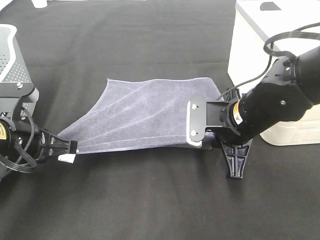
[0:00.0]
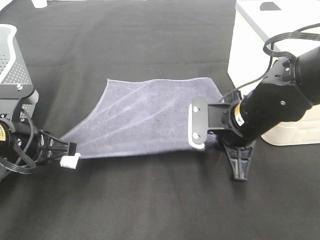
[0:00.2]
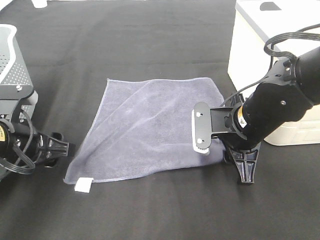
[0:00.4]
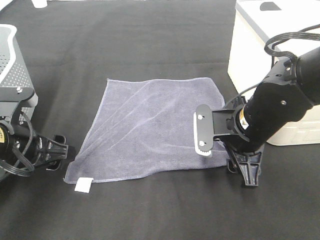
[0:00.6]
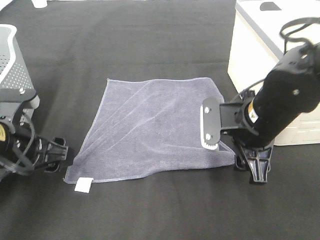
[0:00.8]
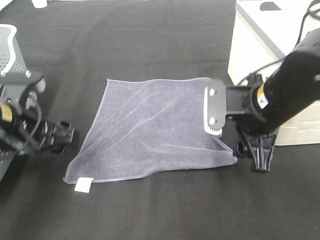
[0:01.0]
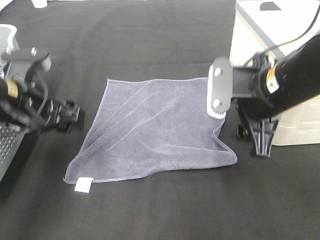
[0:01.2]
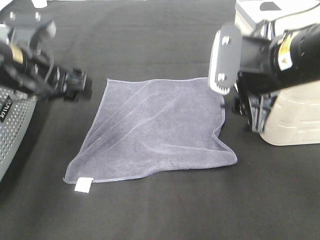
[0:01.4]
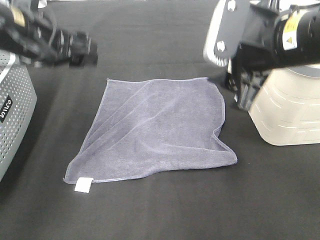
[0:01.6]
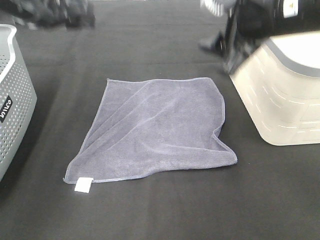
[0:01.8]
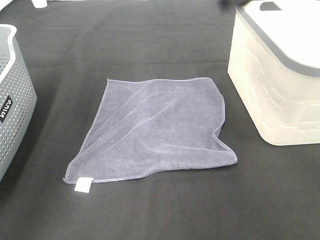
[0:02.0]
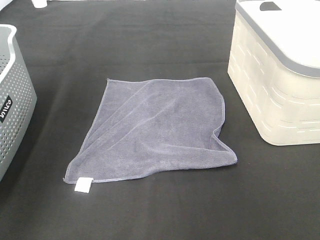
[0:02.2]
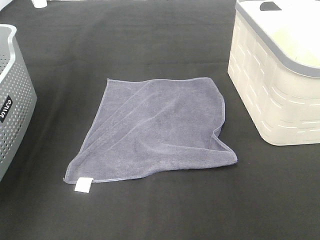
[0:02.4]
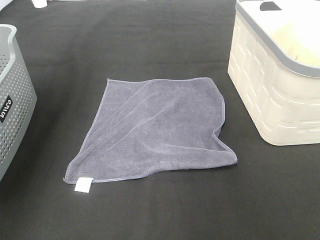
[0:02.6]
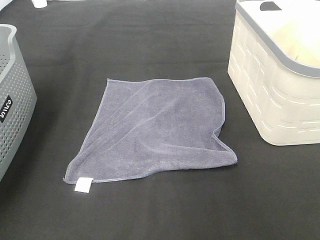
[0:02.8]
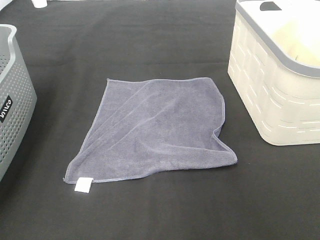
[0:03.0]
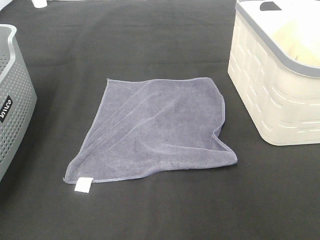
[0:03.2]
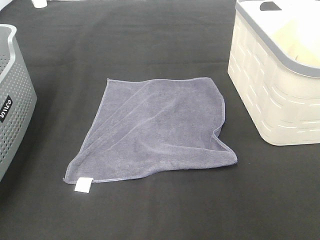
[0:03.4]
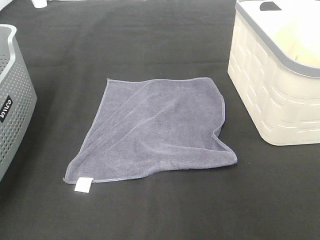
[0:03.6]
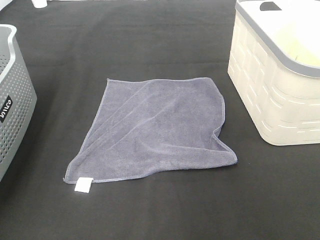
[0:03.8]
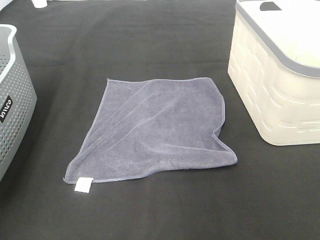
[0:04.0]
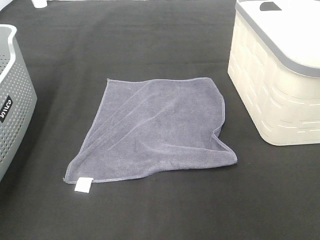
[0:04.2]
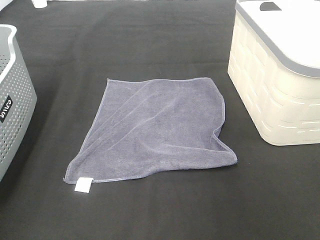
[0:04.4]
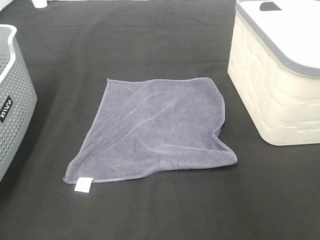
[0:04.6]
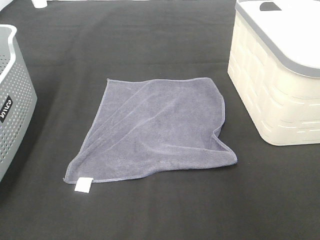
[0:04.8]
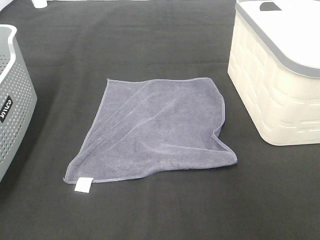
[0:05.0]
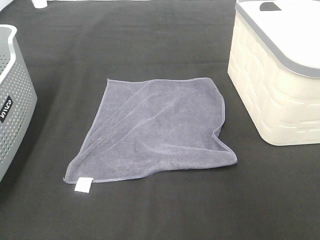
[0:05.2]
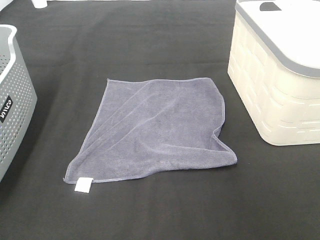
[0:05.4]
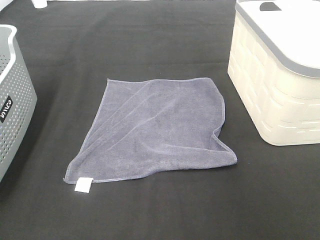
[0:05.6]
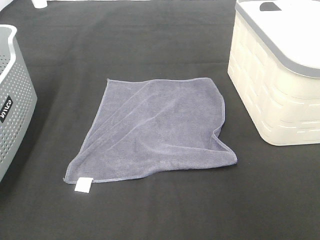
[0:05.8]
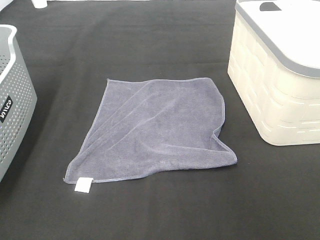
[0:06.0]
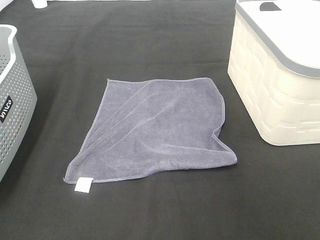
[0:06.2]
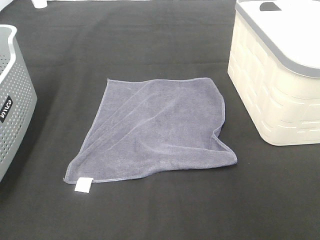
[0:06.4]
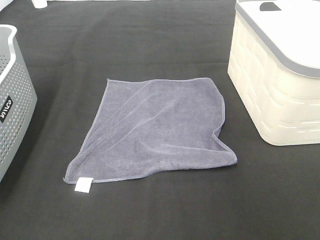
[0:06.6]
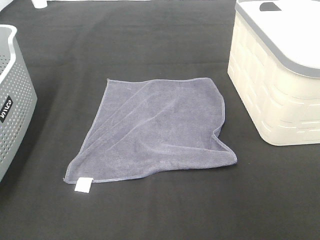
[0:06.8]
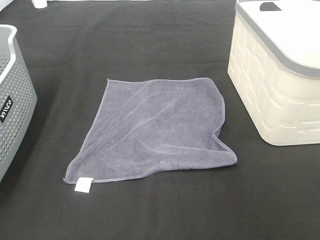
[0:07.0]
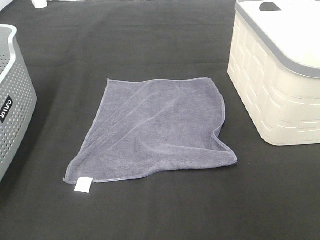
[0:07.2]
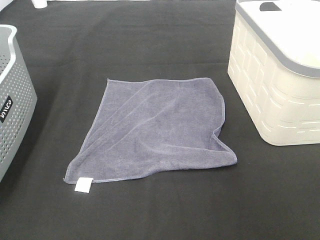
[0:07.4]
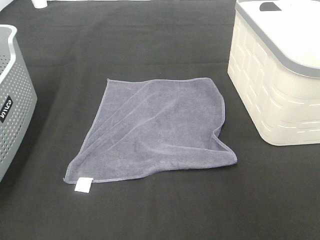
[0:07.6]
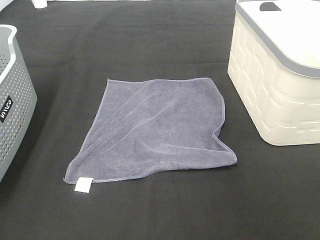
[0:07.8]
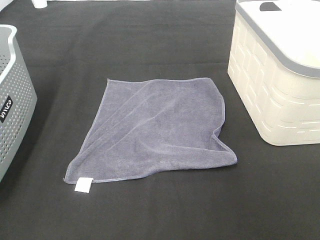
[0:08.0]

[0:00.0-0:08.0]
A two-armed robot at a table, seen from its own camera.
Task of the whole recording: Remove the towel and place it.
0:00.0 to 0:01.6: The left gripper is displaced upward and forward by about 15 cm, and opens its fingers, while the right gripper moves upward, approximately 15 cm, and opens its fingers.
0:01.6 to 0:03.2: The right gripper shifts roughly 20 cm upward, forward and to the right. Meanwhile the left gripper goes about 25 cm to the left and upward.
0:03.2 to 0:04.8: The left gripper shifts about 30 cm backward and downward.

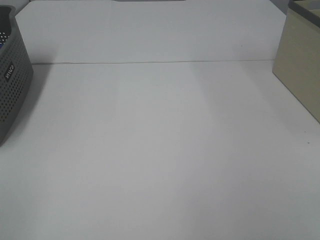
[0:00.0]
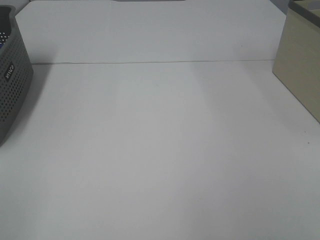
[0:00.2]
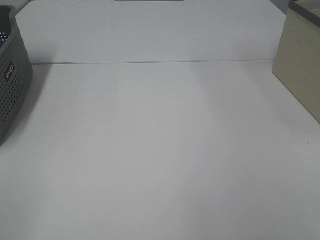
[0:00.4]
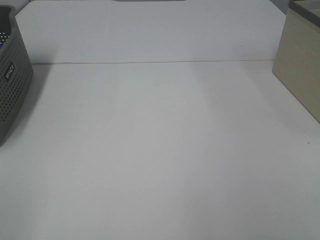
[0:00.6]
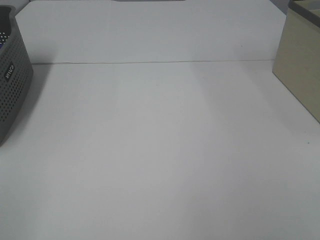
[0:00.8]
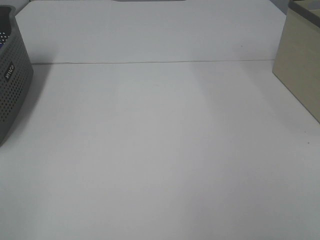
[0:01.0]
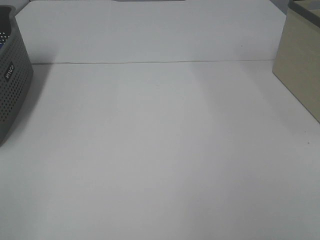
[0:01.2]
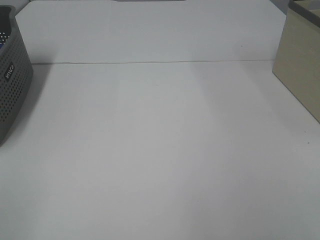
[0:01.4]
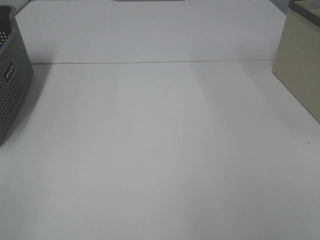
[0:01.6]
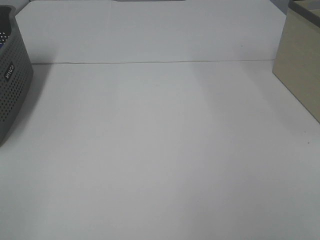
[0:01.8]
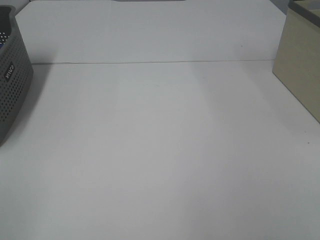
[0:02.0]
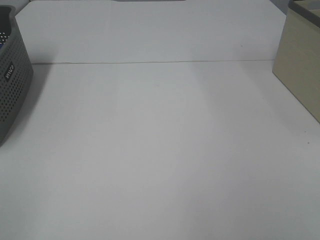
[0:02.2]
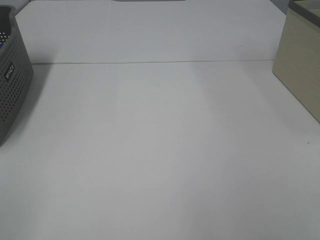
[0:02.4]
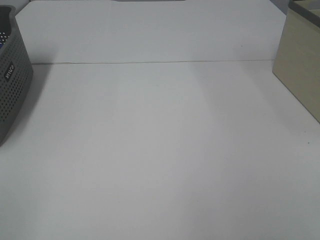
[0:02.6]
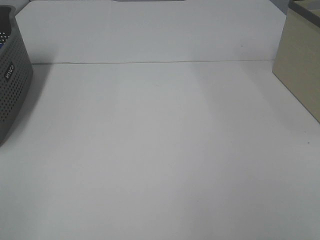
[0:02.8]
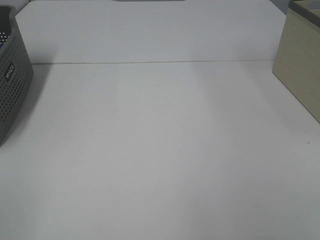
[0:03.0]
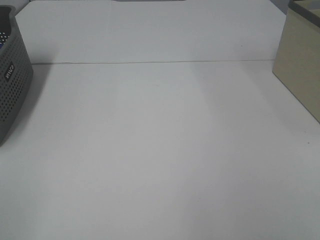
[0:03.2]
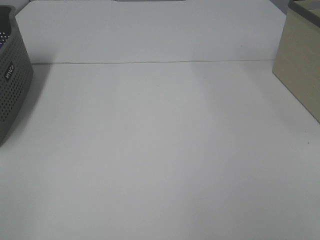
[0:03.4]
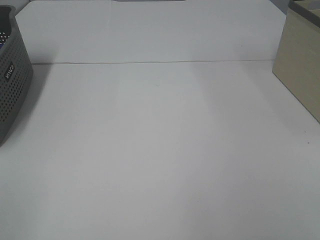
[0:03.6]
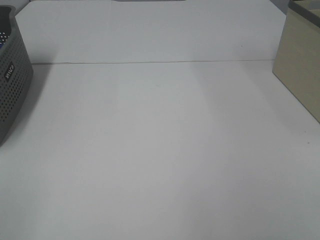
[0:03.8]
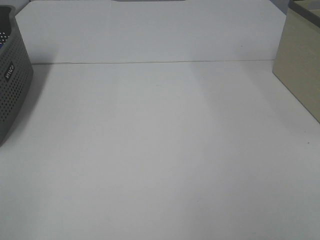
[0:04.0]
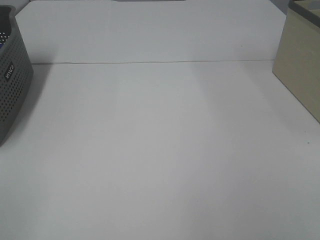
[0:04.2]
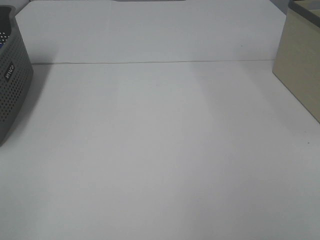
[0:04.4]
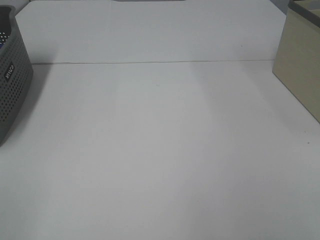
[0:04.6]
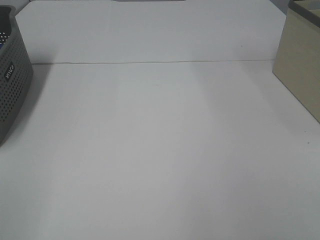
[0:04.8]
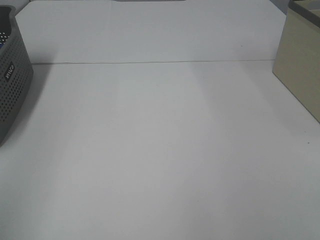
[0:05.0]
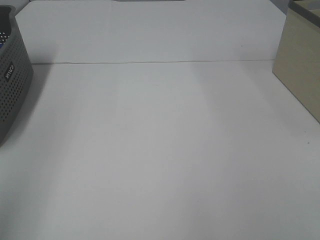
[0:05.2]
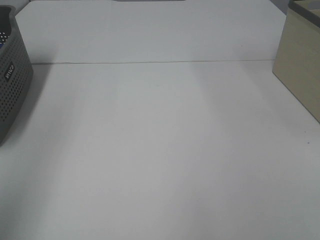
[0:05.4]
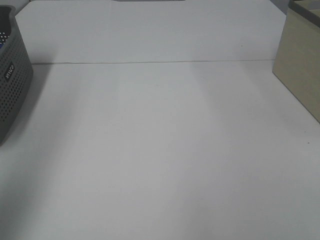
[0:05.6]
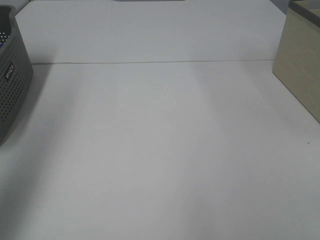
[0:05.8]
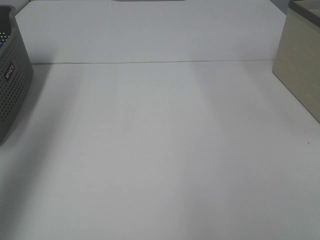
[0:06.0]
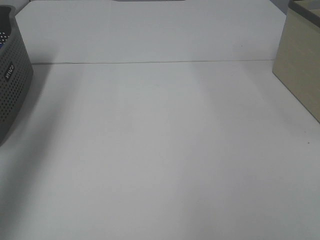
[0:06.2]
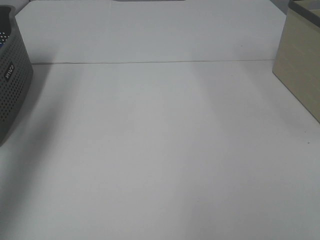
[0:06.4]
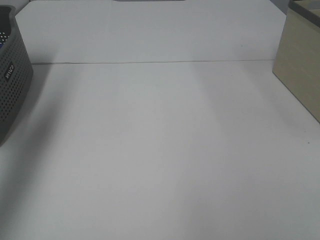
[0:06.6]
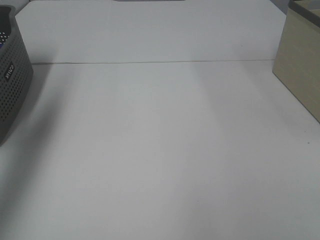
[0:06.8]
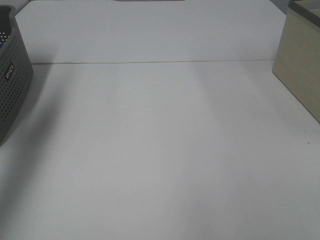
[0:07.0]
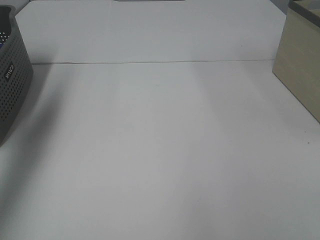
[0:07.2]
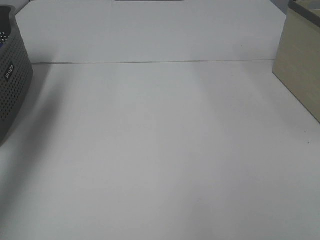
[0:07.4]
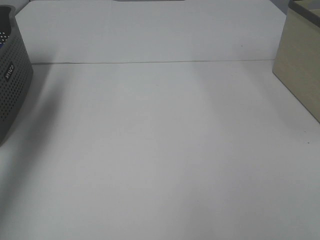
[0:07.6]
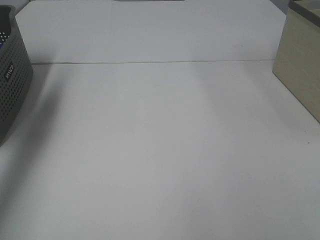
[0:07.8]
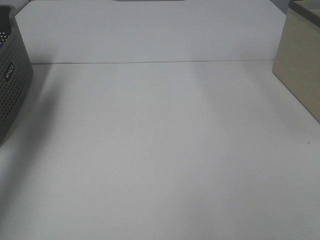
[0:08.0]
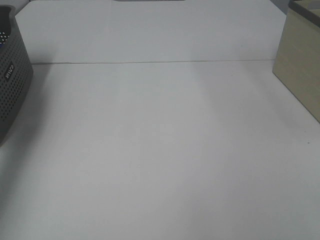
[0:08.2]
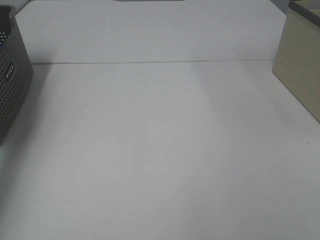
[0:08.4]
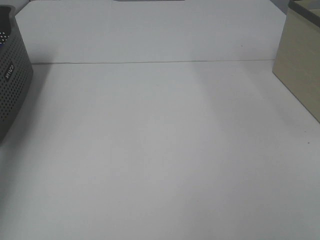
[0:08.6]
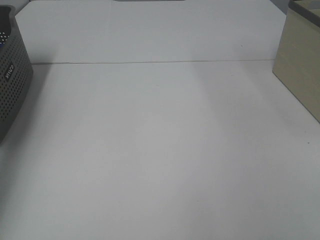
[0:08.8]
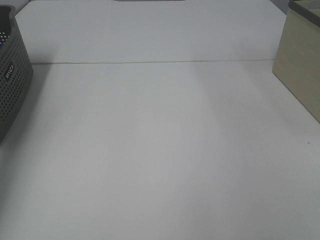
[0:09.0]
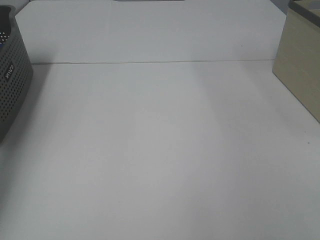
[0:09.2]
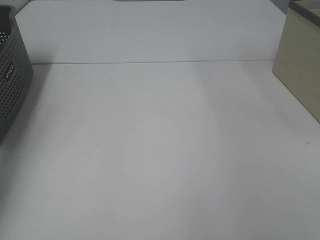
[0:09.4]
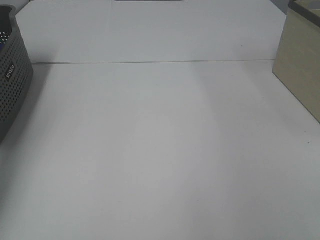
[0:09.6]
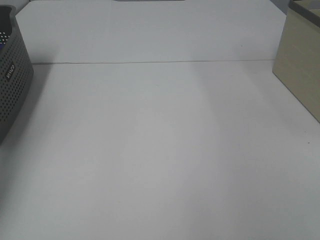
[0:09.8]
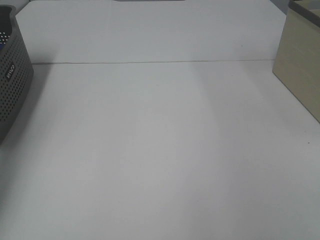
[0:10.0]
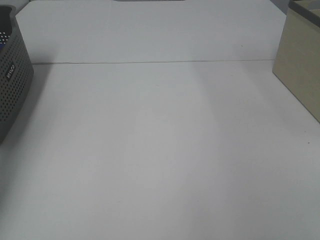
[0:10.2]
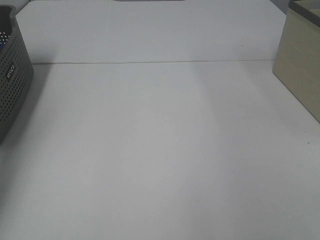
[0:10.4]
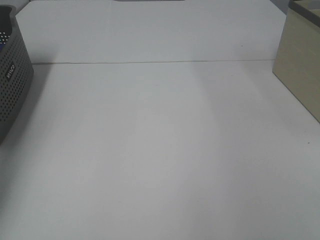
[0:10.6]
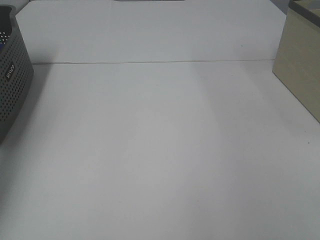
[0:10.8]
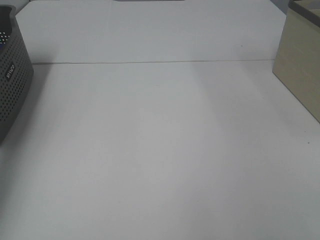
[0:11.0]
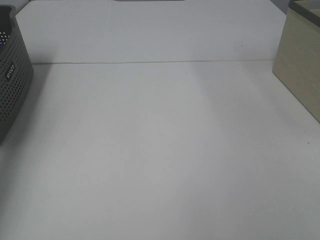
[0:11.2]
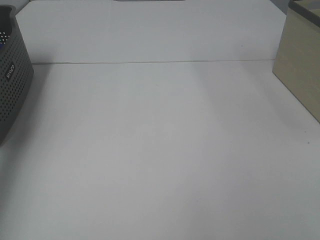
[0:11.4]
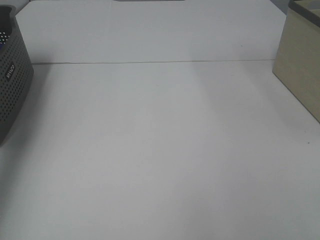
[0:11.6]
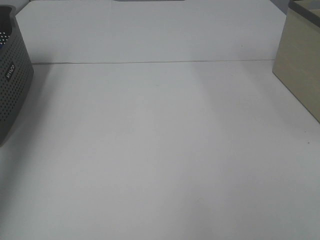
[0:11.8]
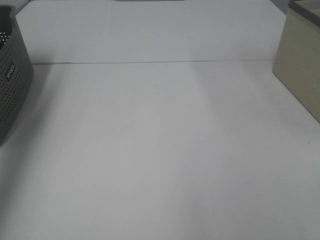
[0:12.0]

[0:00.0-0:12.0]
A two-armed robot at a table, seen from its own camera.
Task of the whole recording: Remove the towel and place it.
0:00.0 to 0:04.4: Both grippers stay put.
0:04.4 to 0:06.0: The left gripper heads forward and upward, covering approximately 25 cm.
0:06.0 to 0:07.6: The left gripper travels forward and downward by roughly 20 cm.
0:07.6 to 0:09.0: The left gripper heads downward and to the left, covering some 10 cm.
0:10.4 to 0:12.0: The left gripper moves upward and backward, some 25 cm.

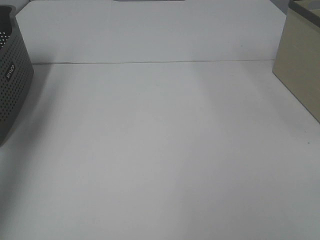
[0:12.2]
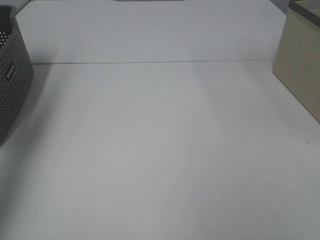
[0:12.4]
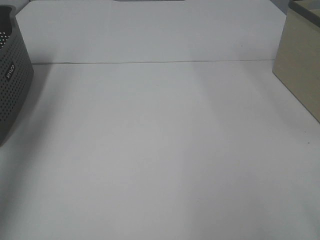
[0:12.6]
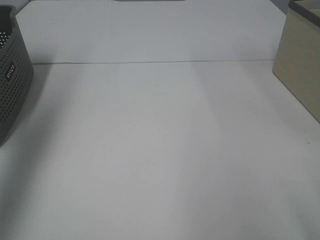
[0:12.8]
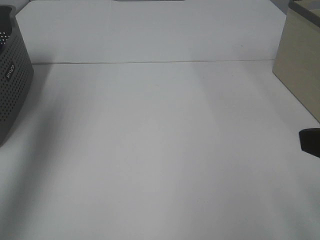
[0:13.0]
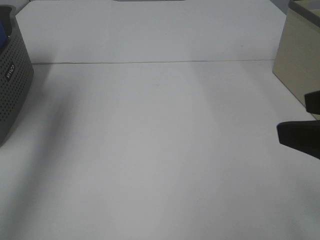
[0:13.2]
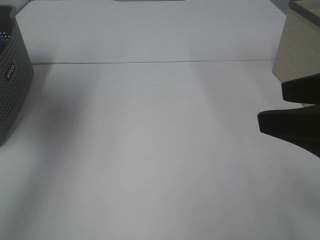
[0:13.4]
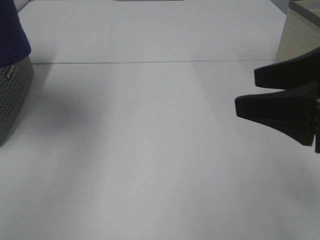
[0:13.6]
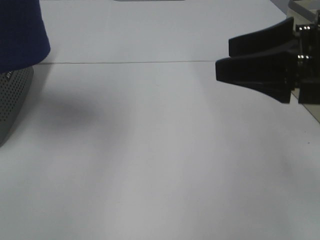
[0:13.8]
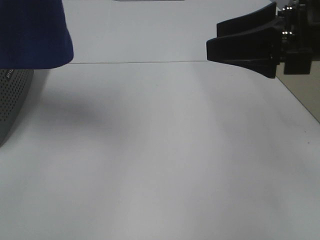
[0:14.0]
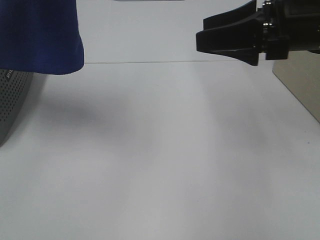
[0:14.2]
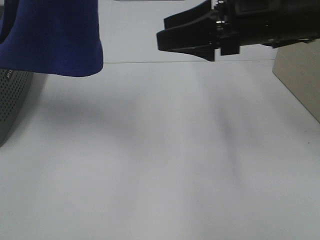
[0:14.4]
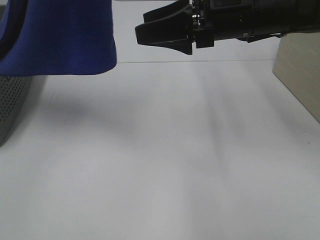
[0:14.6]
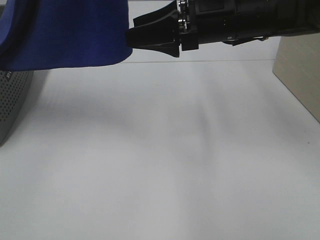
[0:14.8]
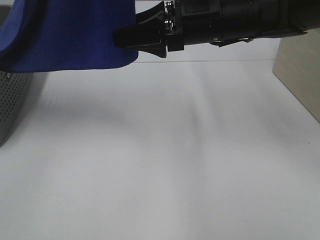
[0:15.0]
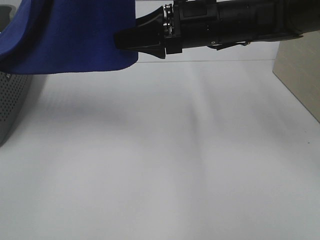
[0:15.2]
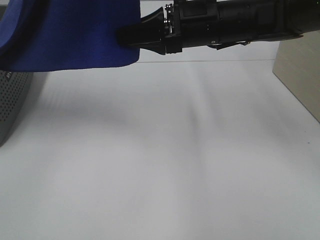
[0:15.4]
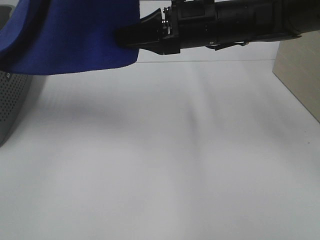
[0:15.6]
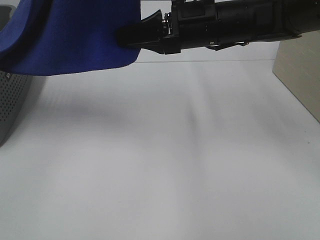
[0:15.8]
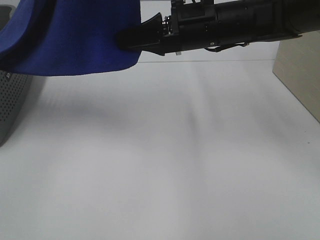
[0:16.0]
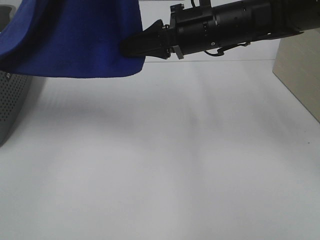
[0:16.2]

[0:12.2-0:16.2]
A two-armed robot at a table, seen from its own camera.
Task of the whole recording: Remove the towel and place it.
Step, 0:12.2 to 0:15.2: Right hand: grab a corner of the blue towel and straighten it.
0:12.2 to 0:13.6: The right gripper shifts approximately 15 cm forward and to the left; the left gripper moves to the right and upward, approximately 15 cm.
0:13.6 to 0:14.8: The left gripper travels to the right by roughly 10 cm. Meanwhile the right gripper heads forward and to the left, covering approximately 20 cm.
0:14.8 to 0:16.2: The right gripper closes up.
